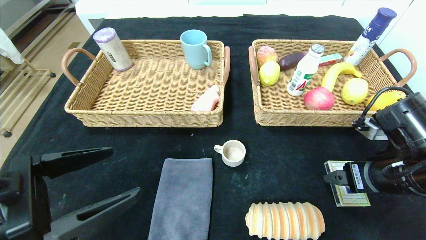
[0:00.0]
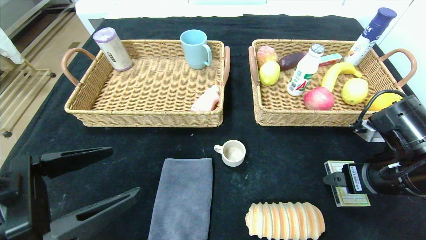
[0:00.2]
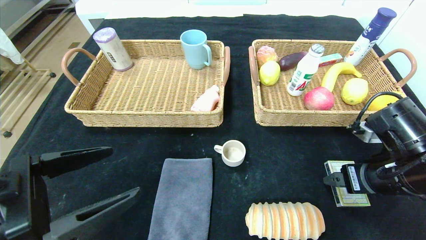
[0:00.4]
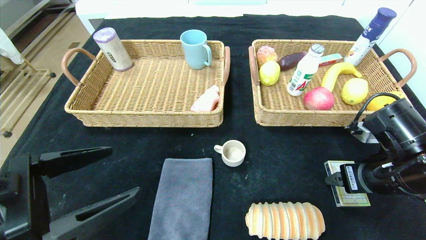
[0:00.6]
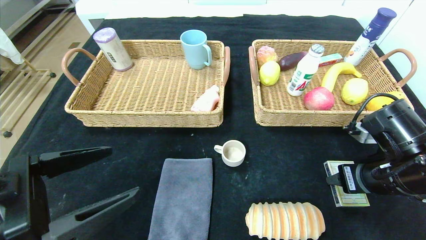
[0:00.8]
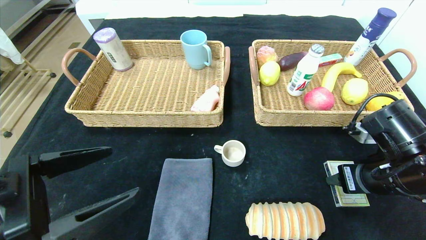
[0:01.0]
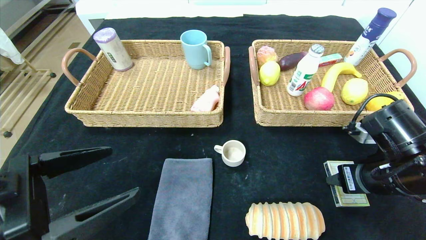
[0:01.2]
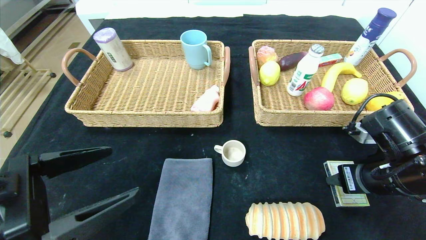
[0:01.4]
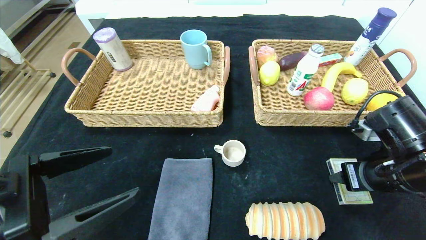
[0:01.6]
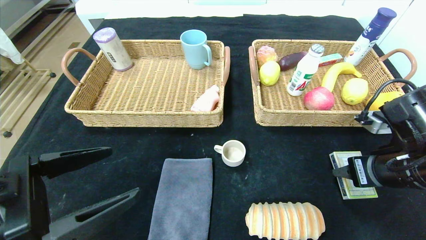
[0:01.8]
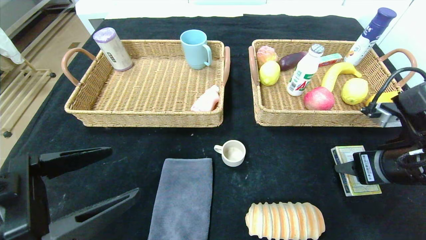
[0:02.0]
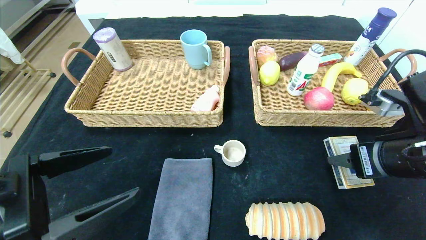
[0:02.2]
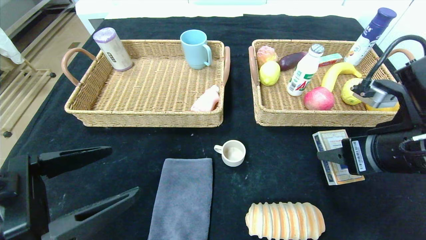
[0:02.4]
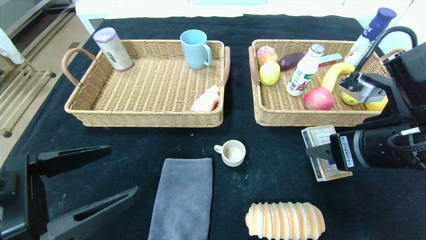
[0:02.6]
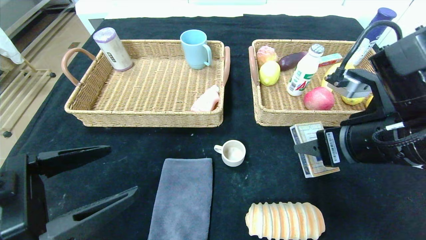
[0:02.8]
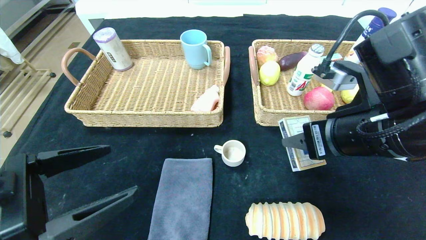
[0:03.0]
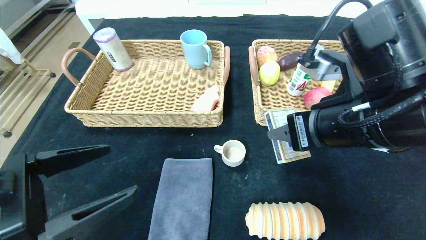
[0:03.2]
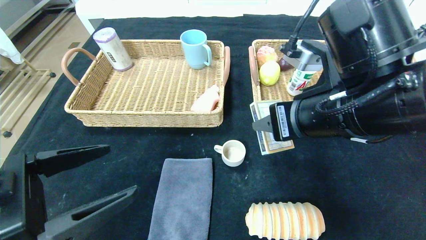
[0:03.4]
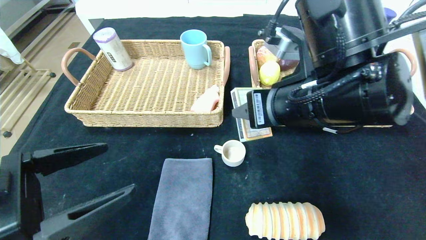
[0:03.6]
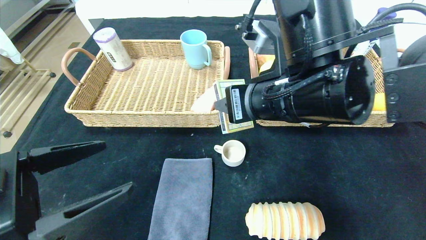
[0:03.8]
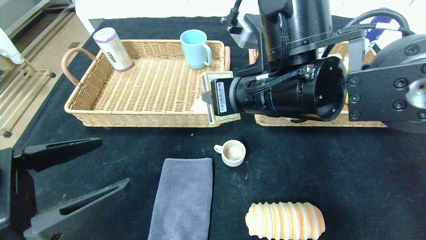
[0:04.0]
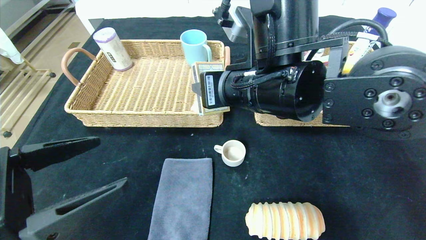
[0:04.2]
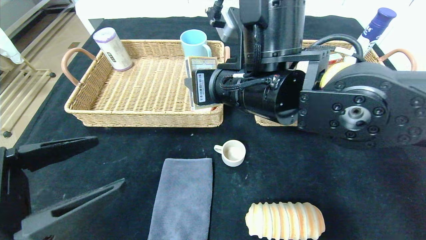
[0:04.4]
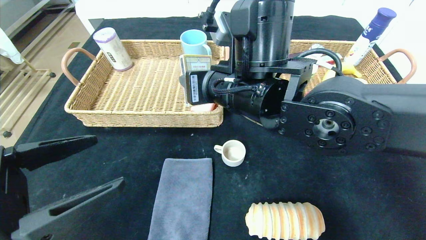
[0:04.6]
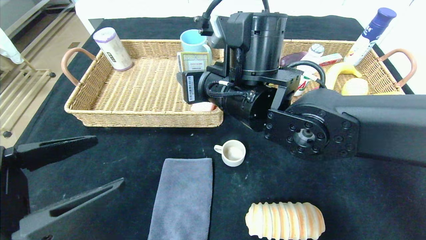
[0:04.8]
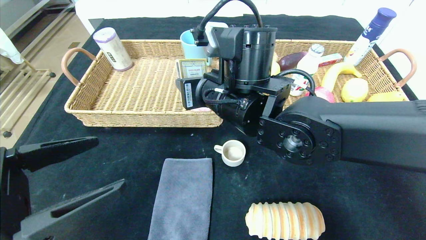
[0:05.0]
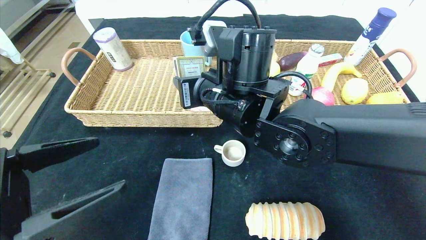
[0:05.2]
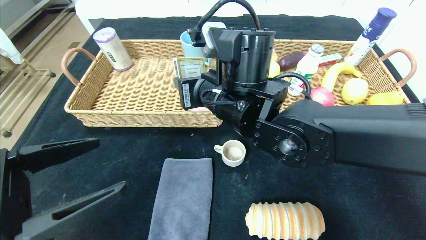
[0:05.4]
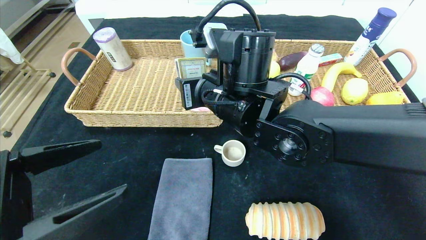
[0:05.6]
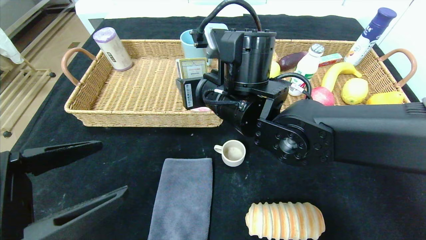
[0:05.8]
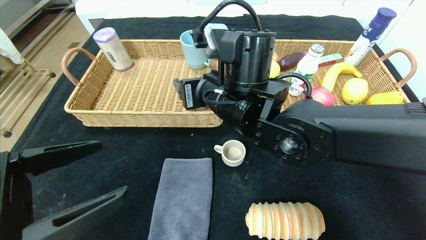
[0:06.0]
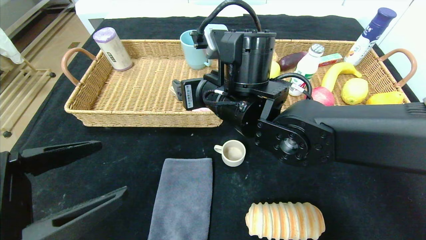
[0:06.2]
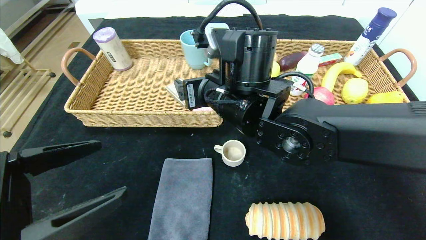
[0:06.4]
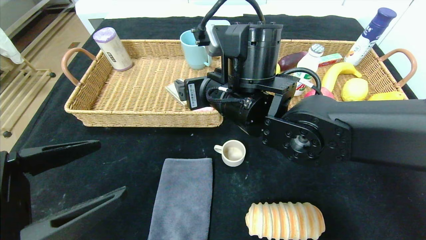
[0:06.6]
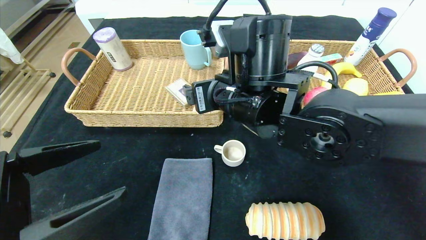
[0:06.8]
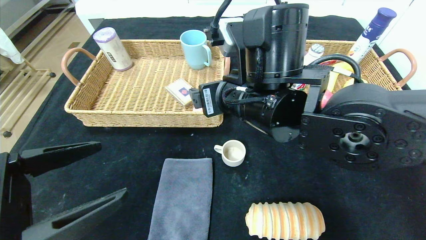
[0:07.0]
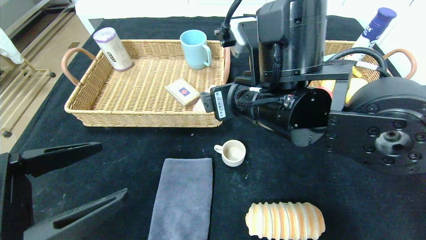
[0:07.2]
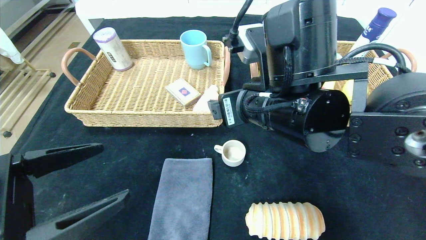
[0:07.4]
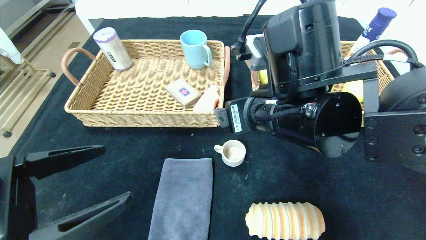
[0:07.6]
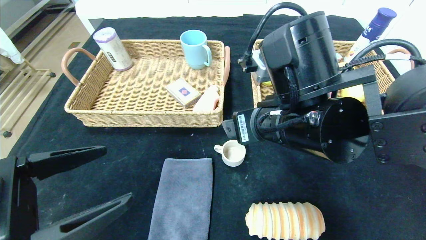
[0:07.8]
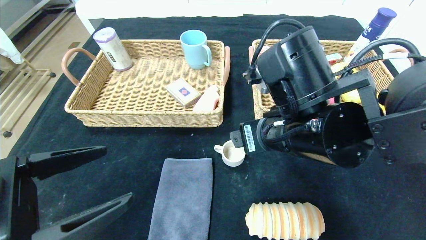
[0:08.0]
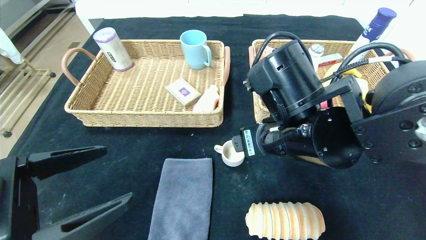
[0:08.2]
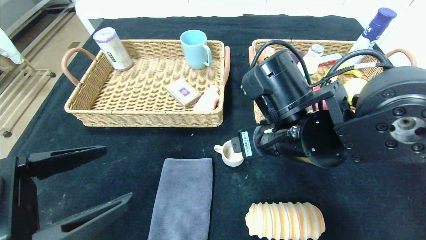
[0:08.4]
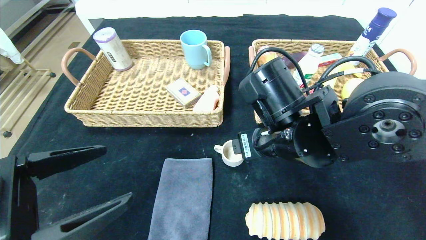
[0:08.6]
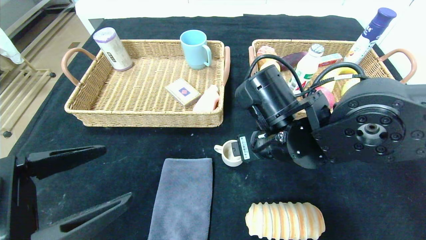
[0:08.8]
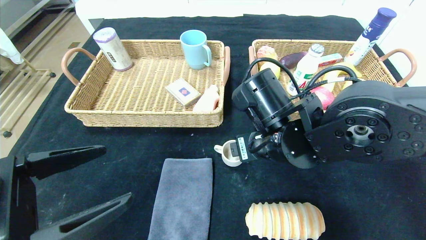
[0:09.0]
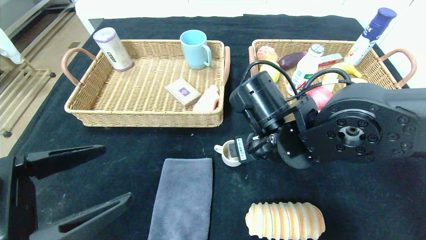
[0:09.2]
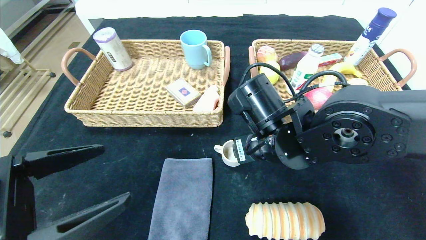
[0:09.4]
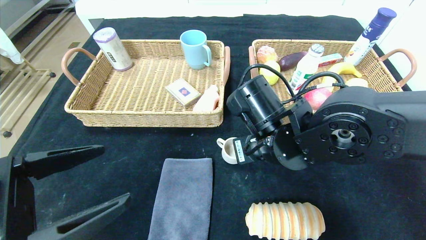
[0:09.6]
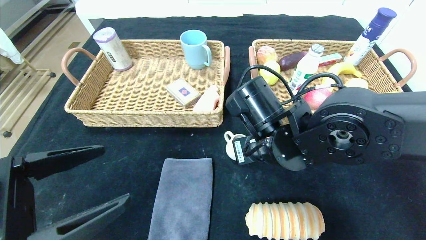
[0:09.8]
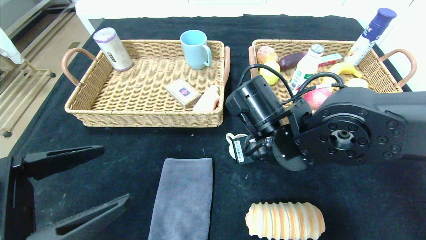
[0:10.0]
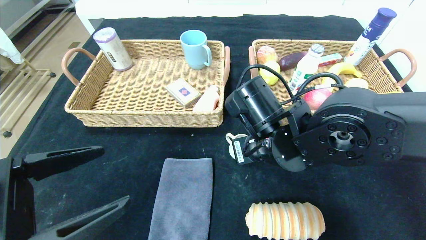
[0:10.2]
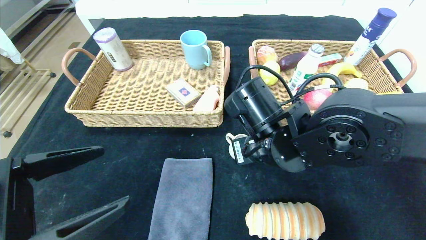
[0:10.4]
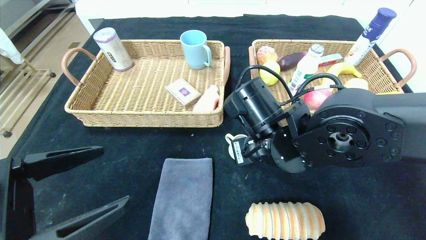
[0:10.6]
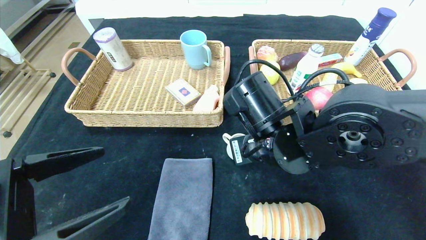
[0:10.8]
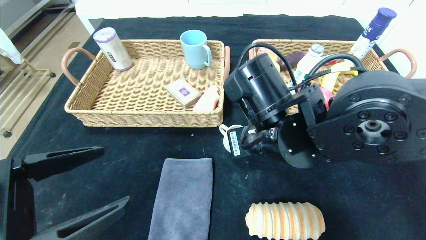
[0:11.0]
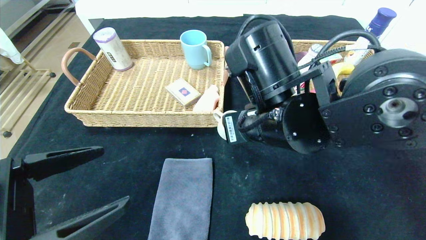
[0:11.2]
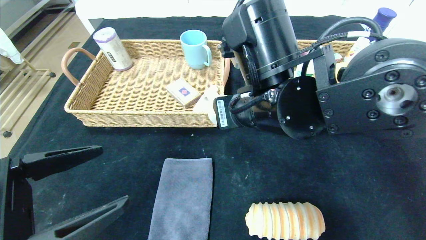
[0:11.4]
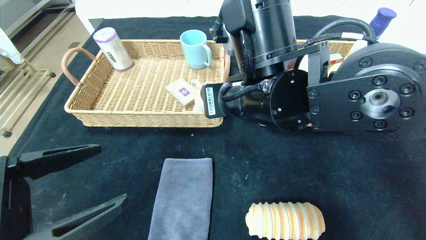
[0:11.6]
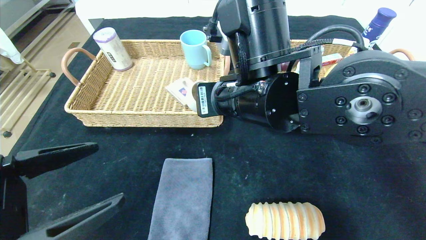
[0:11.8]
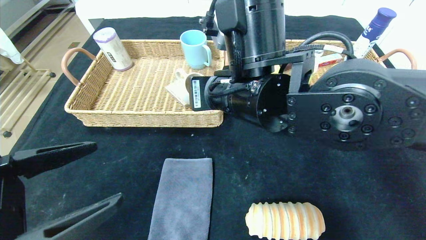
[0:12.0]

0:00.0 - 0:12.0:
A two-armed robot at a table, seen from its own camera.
0:00.0 - 0:01.6: The right gripper closes.
0:01.6 - 0:03.0: The right gripper is displaced to the left and upward by about 10 cm.
0:03.0 - 0:04.4: The right gripper is displaced to the left and forward by approximately 15 cm.
0:06.0 - 0:07.6: The right gripper goes roughly 10 cm to the right and backward.
0:07.6 - 0:09.0: The right gripper goes some 5 cm downward.
0:09.0 - 0:10.4: The right gripper closes.
0:10.4 - 0:12.0: The right gripper moves upward, roughly 10 cm.

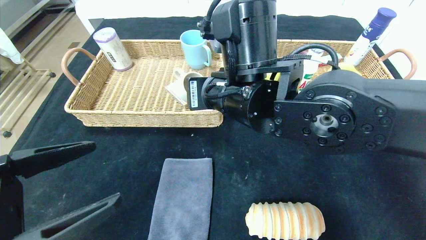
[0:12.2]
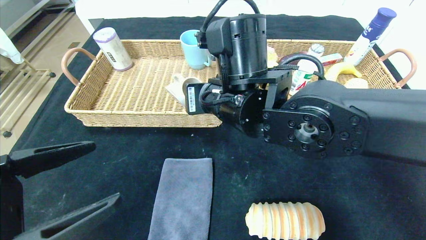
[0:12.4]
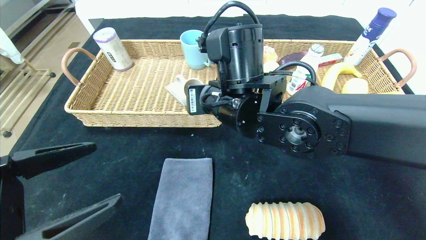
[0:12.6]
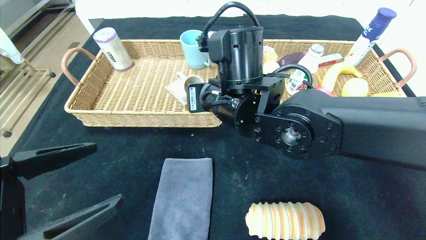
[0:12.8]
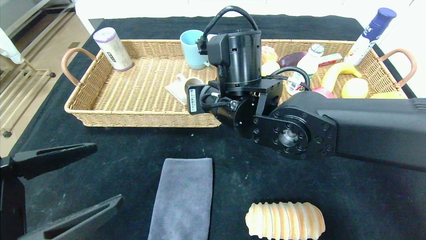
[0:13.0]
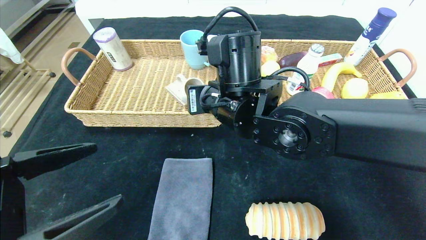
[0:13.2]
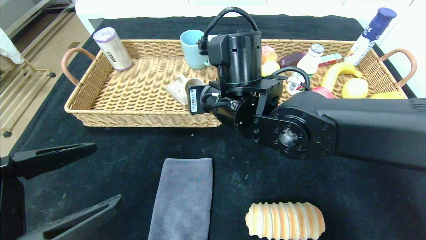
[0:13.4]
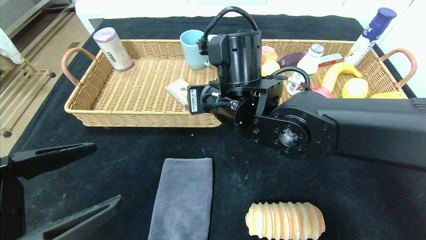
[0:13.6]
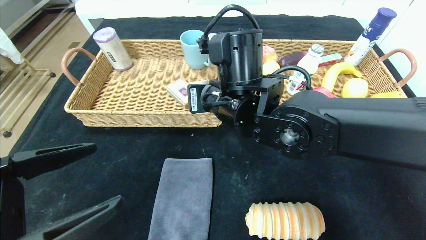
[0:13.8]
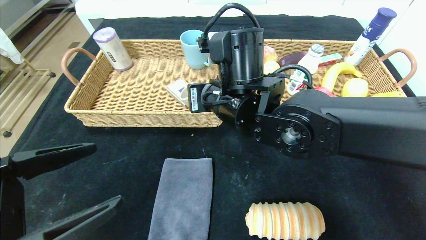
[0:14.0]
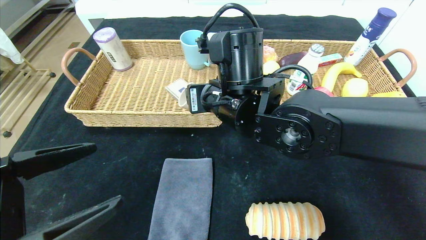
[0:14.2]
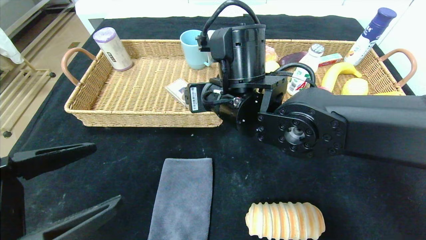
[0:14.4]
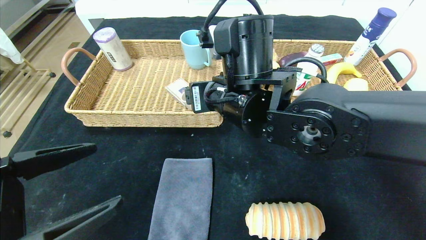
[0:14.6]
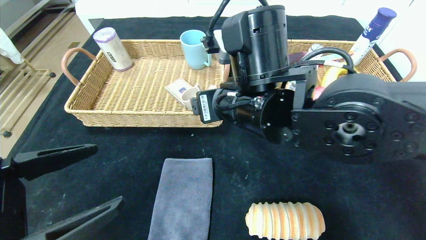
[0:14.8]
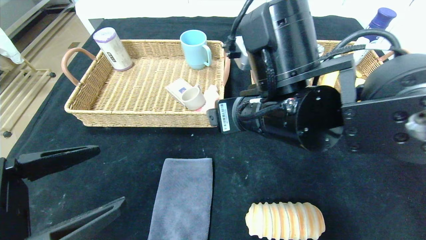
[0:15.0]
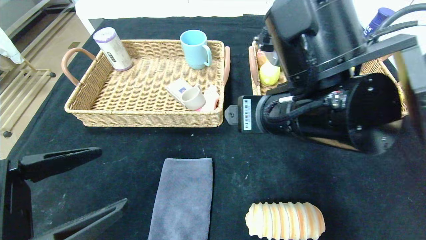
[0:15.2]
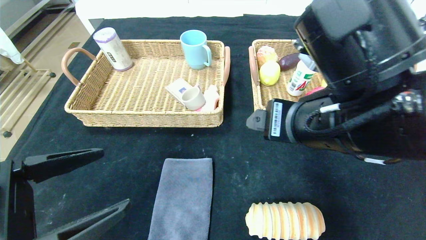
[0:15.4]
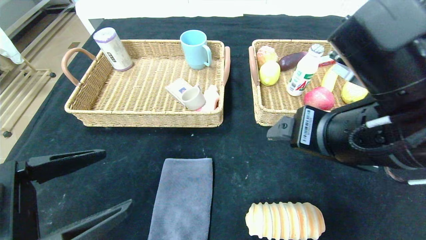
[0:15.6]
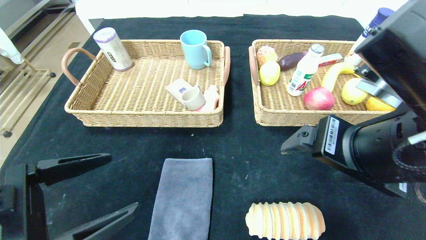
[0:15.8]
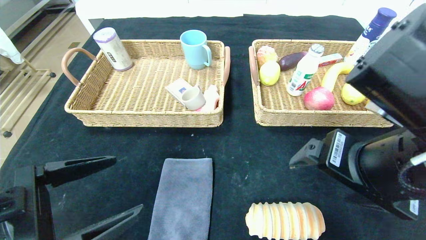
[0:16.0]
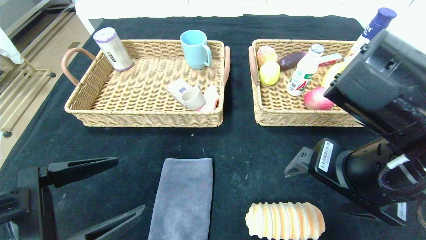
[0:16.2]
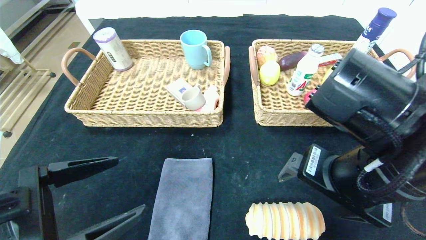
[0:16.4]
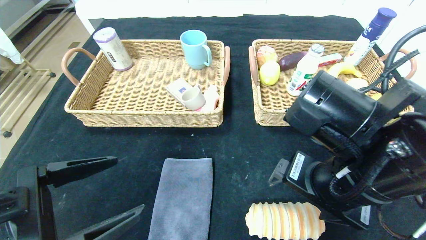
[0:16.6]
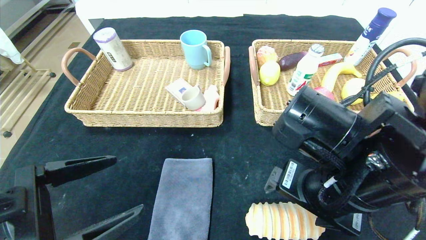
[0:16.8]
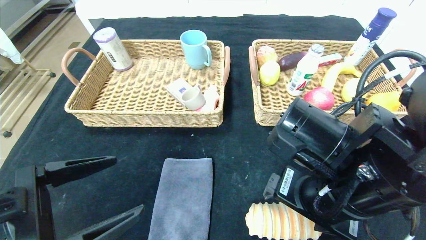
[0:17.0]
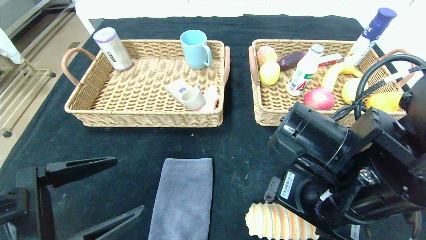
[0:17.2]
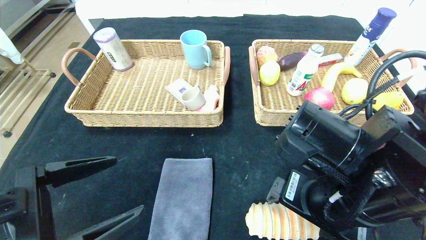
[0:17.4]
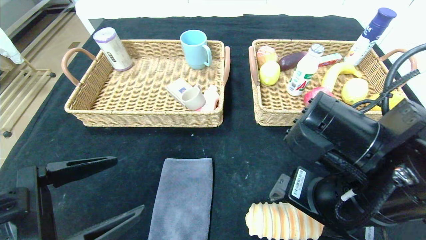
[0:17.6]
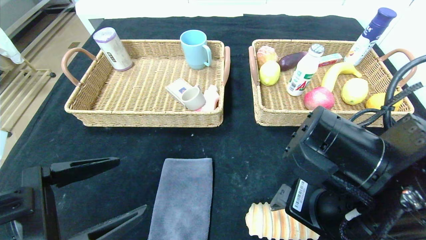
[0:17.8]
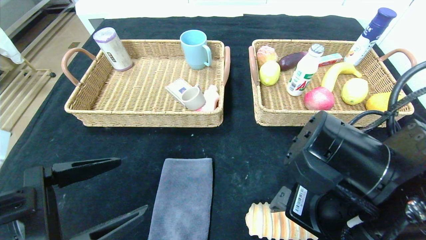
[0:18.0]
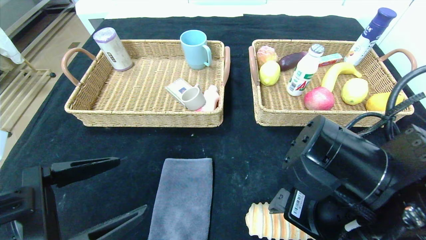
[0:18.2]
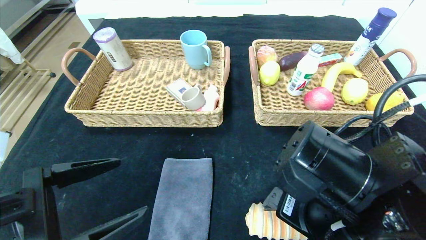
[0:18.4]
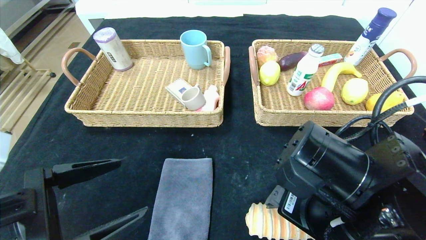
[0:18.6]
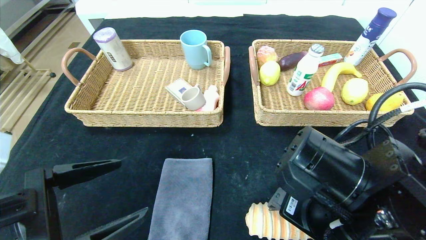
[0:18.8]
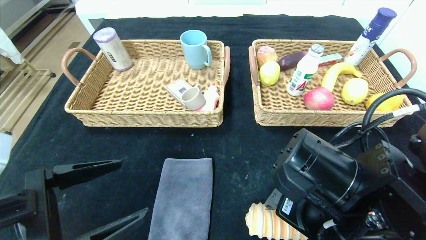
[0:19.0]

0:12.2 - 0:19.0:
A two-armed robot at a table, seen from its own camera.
0:12.2 - 0:13.6: The grippers stay close to where they were, moving slightly.
0:13.6 - 0:15.0: The right gripper travels backward and to the right by some 10 cm, and opens up.
0:15.0 - 0:16.2: The right gripper moves to the right and backward, approximately 10 cm.
0:16.2 - 0:17.6: There are only small adjustments of the grippers.
0:17.6 - 0:19.0: The grippers move only a little.
